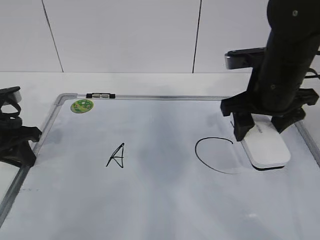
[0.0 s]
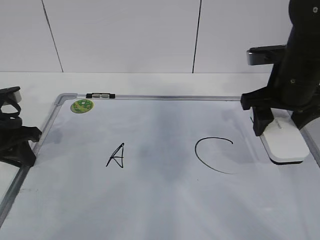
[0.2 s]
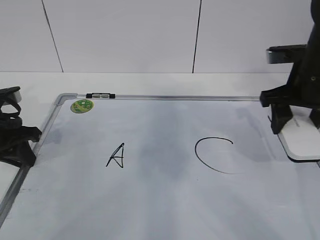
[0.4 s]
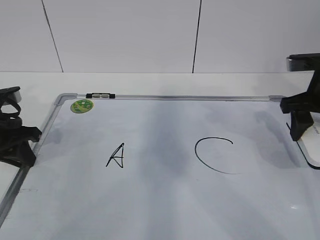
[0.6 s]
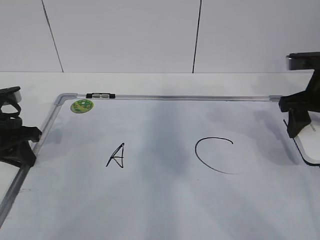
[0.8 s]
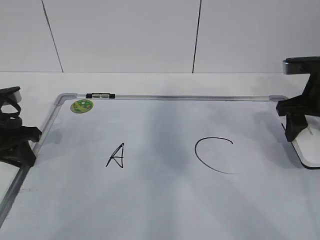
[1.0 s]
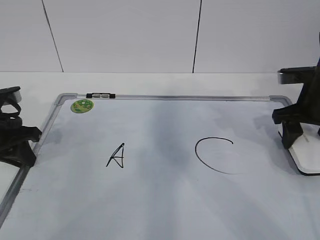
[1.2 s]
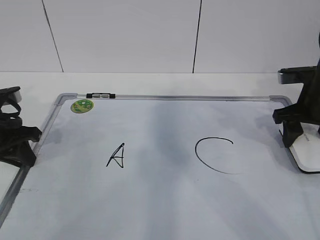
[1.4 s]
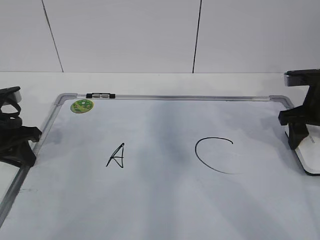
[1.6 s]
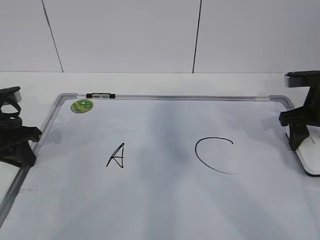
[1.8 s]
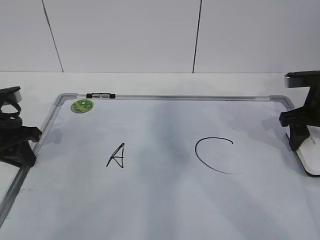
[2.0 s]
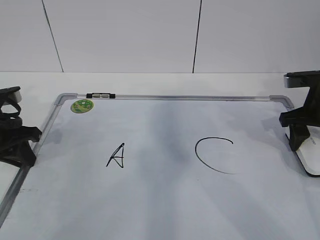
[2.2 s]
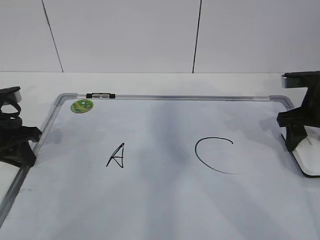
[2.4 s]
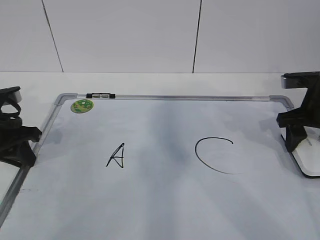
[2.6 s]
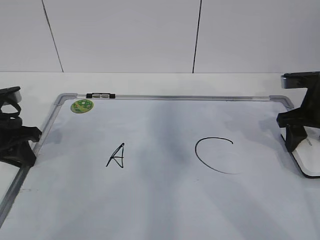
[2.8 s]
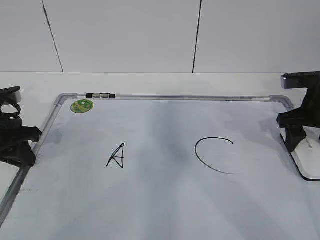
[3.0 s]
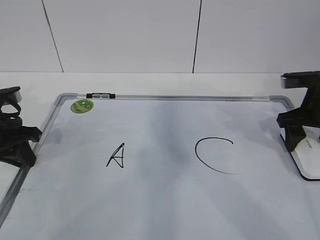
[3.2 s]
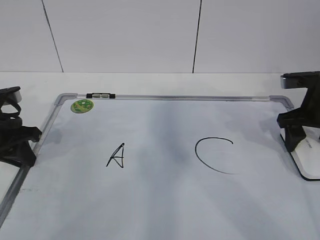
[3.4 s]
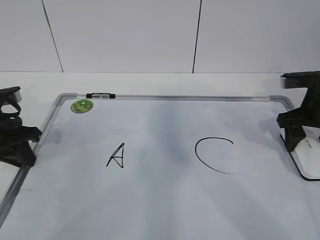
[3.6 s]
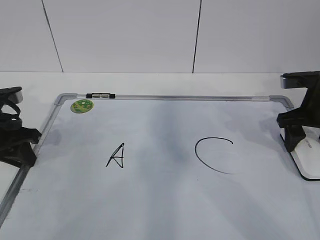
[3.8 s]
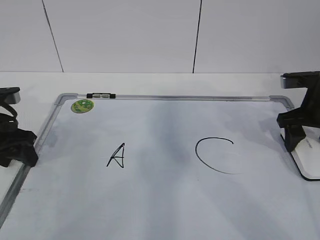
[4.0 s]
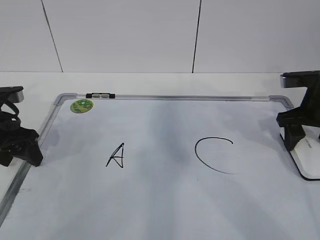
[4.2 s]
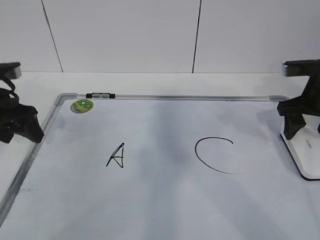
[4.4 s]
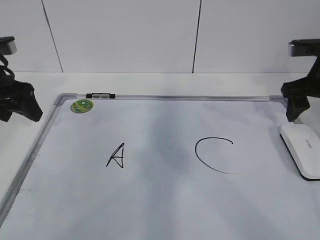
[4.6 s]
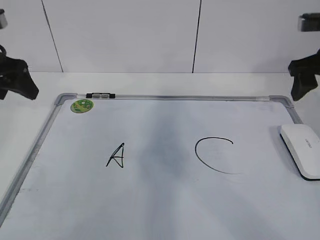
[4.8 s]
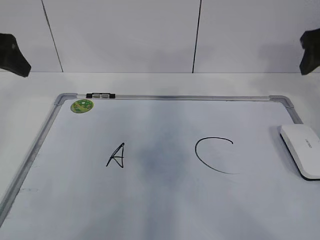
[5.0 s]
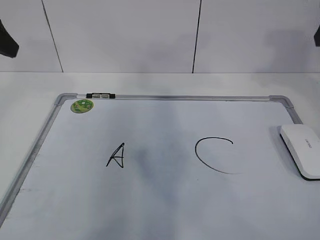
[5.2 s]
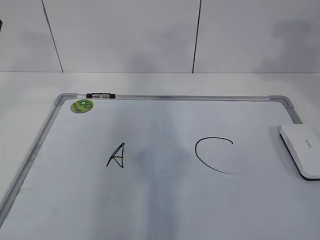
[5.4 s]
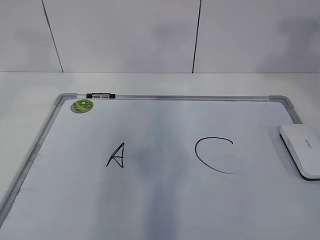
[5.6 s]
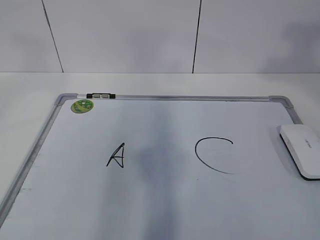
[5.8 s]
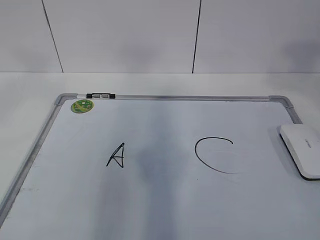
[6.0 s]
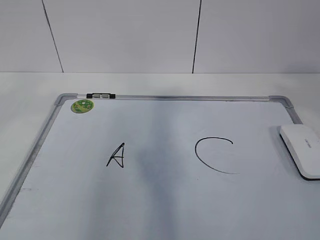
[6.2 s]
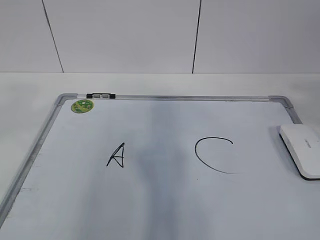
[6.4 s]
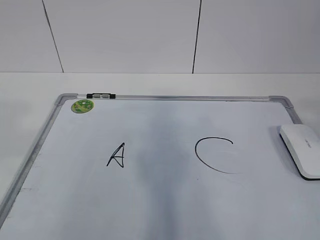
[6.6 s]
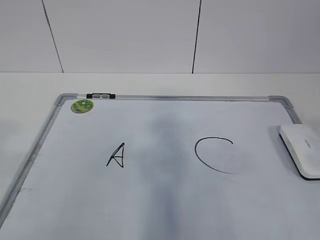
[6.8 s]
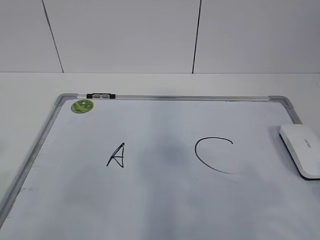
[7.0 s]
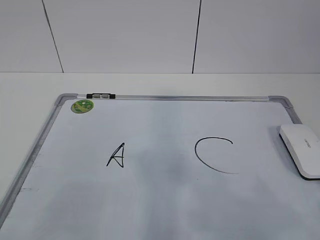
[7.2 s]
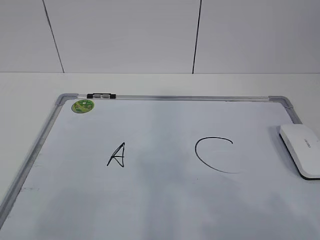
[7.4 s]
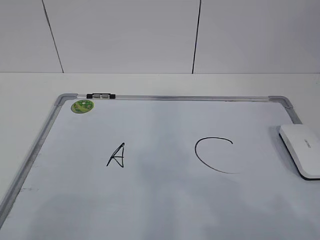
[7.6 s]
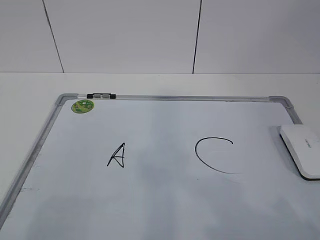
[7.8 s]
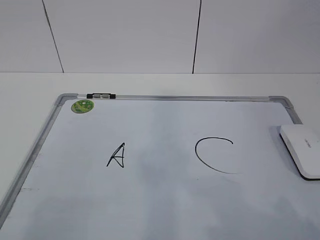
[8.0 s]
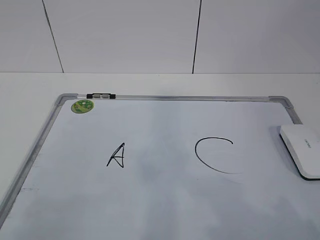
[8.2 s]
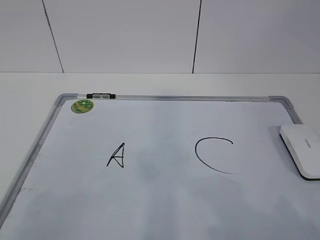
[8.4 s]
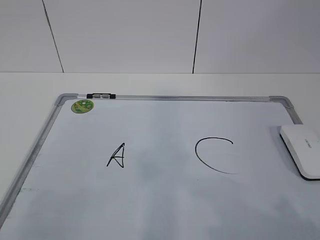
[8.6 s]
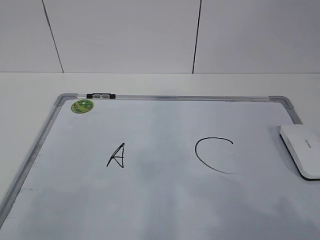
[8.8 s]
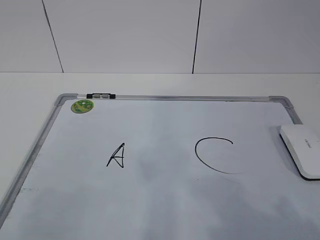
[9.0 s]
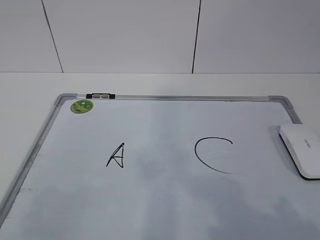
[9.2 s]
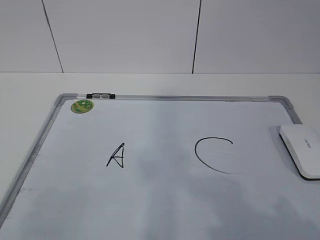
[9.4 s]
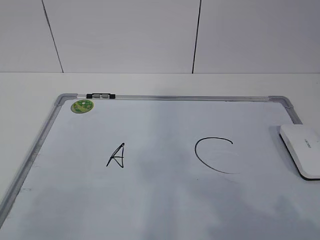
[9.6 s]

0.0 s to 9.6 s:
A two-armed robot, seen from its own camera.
Task of the whole recording: pick up the eraser on the blackboard and erase the letter "B".
0.0 to 1.6 s: The right gripper goes approximately 15 cm to the right and downward.
1.6 to 3.2 s: The right gripper opens up.
3.2 to 4.8 s: Both grippers travel together upward, about 10 cm. The left gripper opens.
4.8 to 6.4 s: Both grippers move backward and upward, some 30 cm.
6.4 to 8.0 s: The grippers both shift downward and backward by about 20 cm.

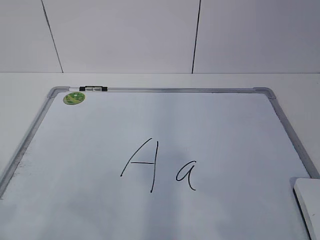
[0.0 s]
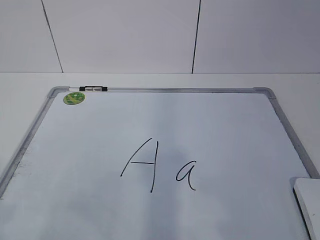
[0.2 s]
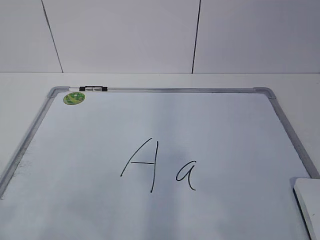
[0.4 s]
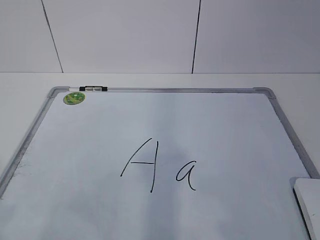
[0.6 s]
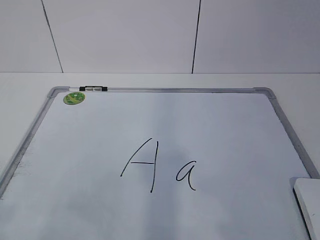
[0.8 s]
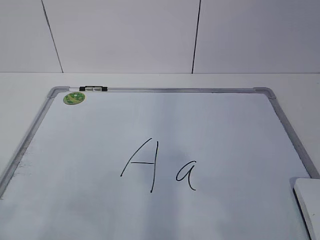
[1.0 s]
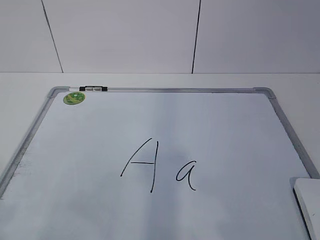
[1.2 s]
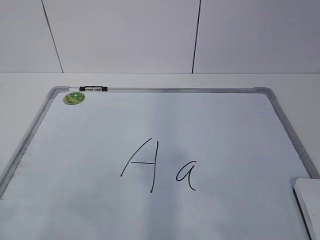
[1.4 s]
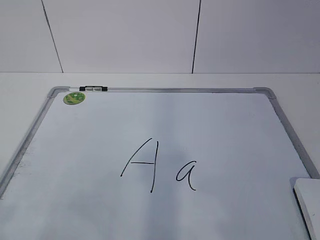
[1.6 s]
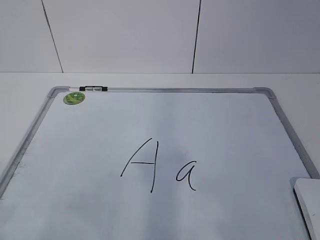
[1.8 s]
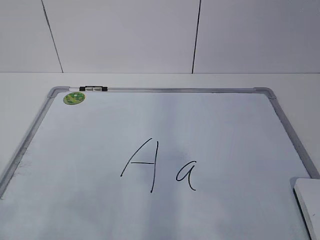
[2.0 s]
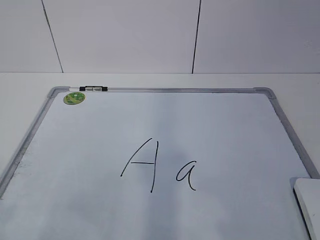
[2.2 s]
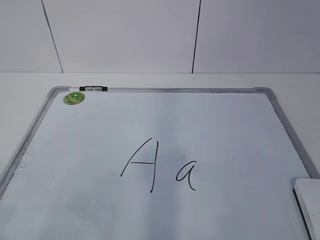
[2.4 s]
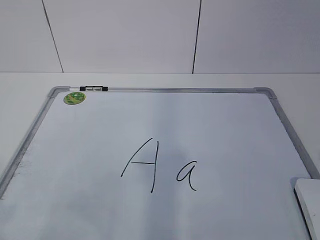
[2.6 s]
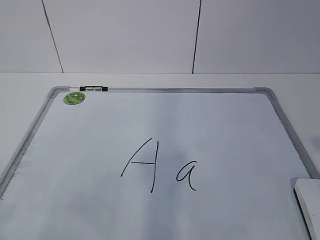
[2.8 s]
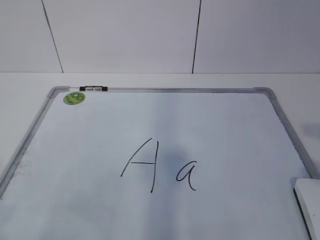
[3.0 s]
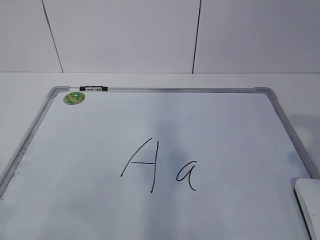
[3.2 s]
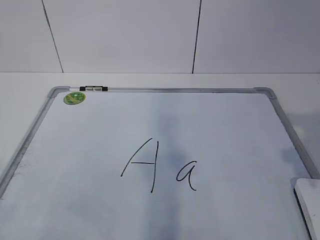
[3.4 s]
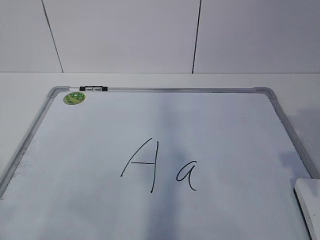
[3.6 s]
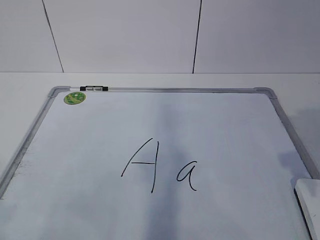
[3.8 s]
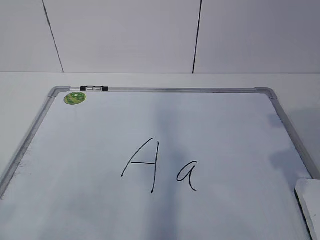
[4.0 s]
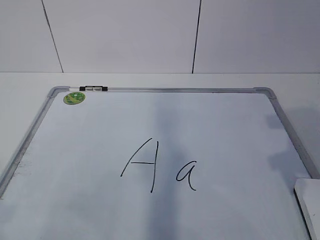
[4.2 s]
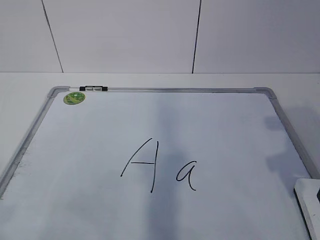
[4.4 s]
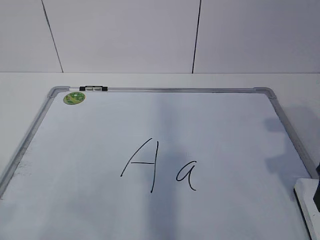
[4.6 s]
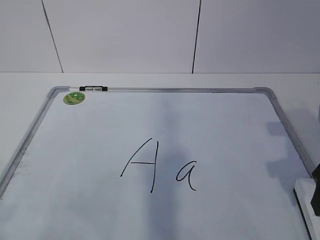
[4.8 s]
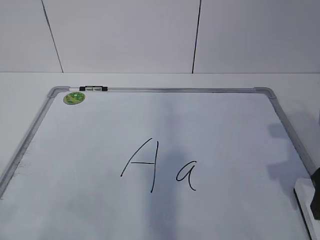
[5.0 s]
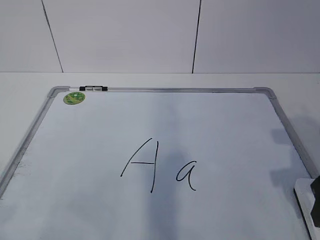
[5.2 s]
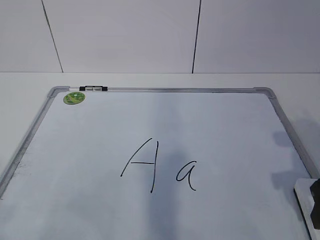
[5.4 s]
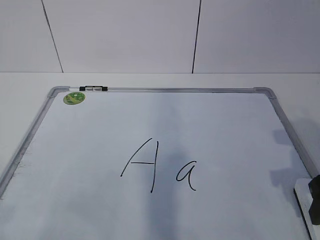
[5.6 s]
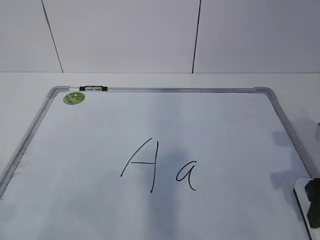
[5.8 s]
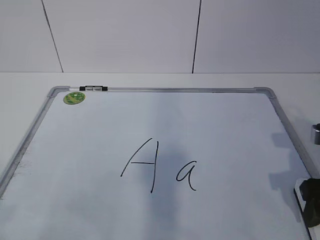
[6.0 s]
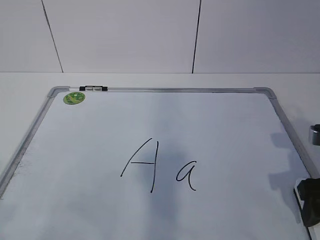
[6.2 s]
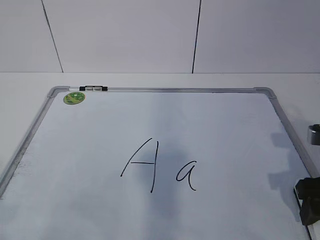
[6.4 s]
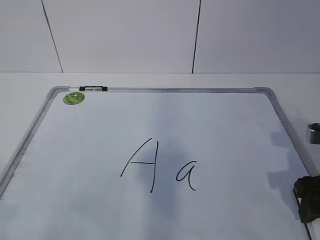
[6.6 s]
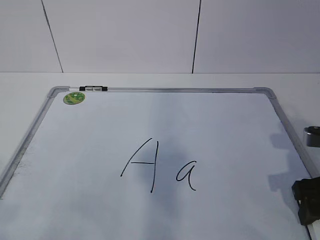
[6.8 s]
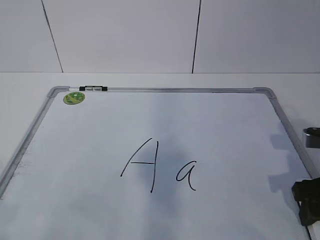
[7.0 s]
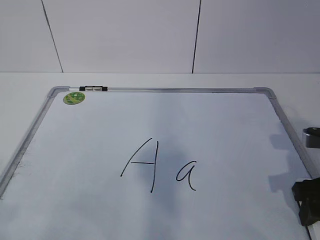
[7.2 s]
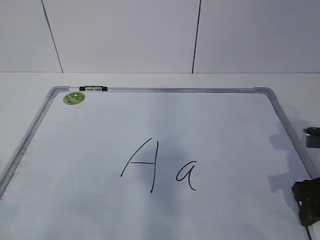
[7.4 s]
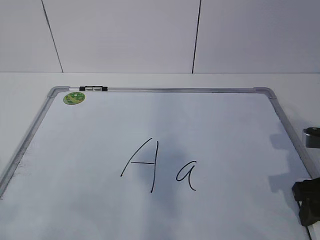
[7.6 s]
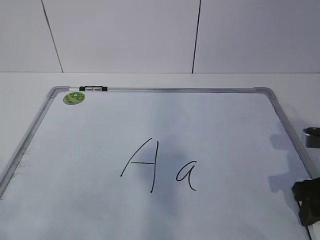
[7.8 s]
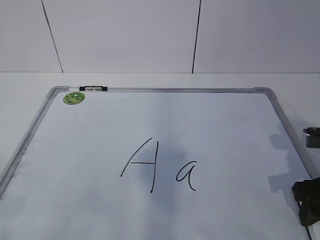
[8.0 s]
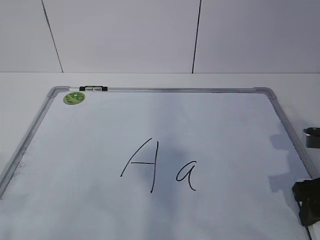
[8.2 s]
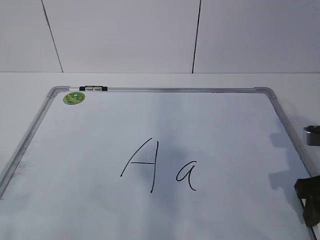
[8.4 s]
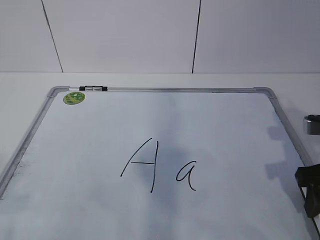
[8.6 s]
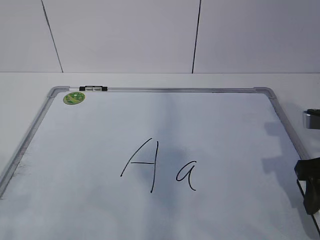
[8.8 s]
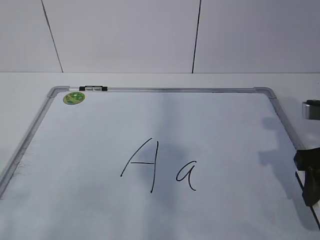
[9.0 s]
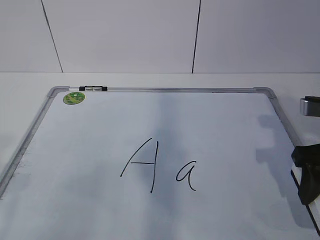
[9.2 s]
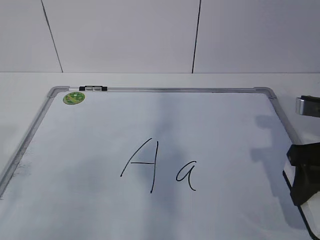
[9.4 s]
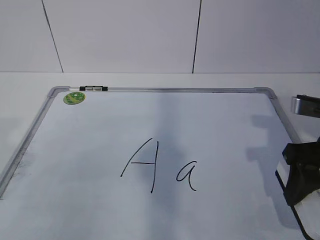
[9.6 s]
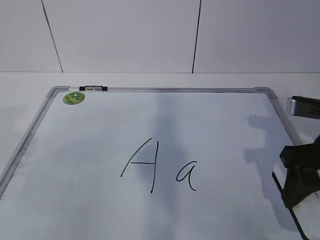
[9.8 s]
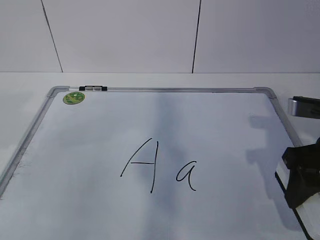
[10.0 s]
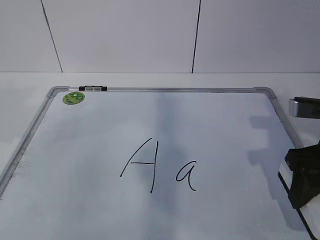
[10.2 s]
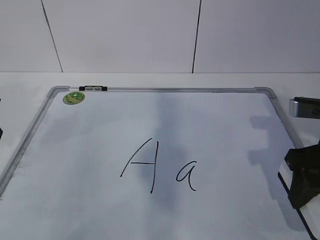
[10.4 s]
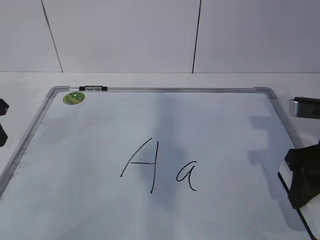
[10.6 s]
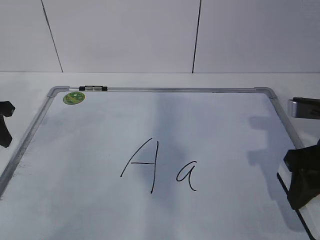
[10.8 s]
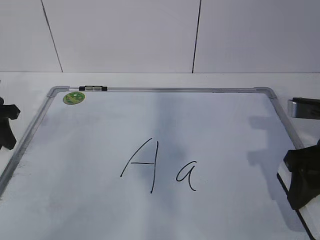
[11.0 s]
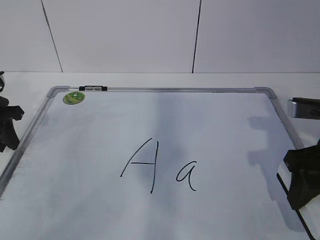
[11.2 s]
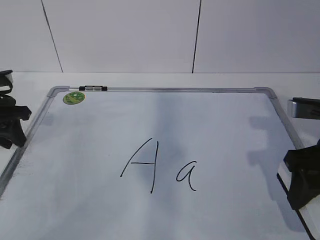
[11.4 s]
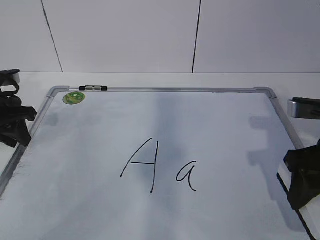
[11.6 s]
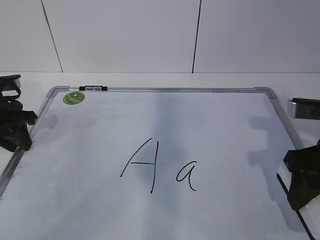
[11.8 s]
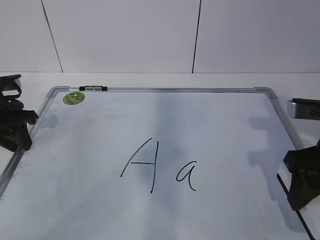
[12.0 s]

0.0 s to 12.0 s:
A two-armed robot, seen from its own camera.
Task of the whole recording: pick up the eraser on the blackboard and erase the letter "a".
Step, 6.0 to 11.8 s: Hold the drawing board steady with your left hand.
3.0 to 4.4 s: The right gripper travels forward by roughly 10 cm.
4.4 to 6.0 s: The right gripper heads downward, covering roughly 5 cm.
6.0 to 7.6 s: The right gripper closes.
7.6 to 9.0 s: The right gripper ends up roughly 5 cm from where it was.
9.0 to 10.4 s: The left gripper goes some 30 cm forward.
10.4 to 12.0 s: The left gripper is displaced downward and forward by some 10 cm.

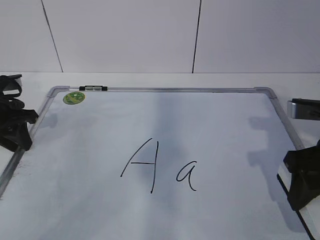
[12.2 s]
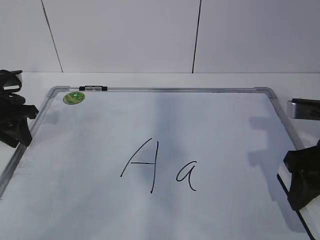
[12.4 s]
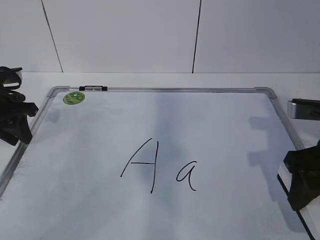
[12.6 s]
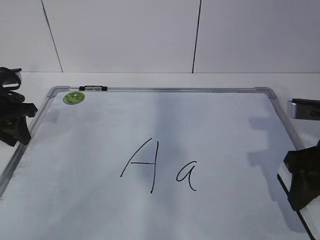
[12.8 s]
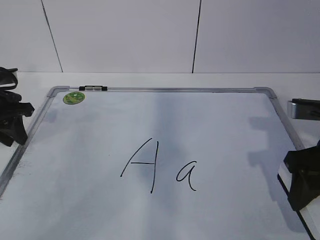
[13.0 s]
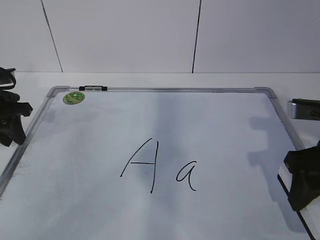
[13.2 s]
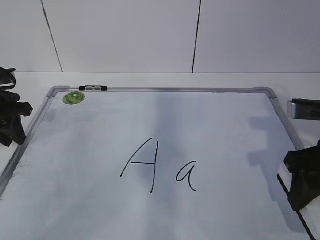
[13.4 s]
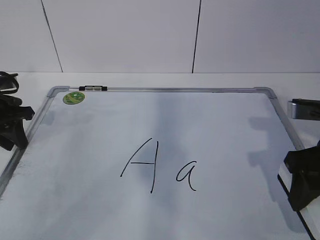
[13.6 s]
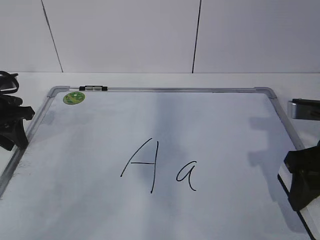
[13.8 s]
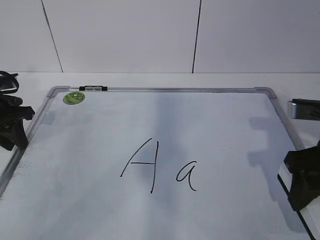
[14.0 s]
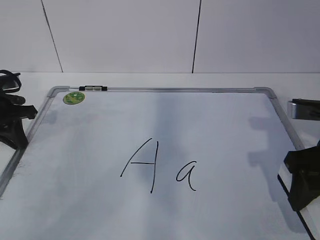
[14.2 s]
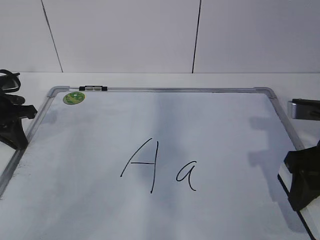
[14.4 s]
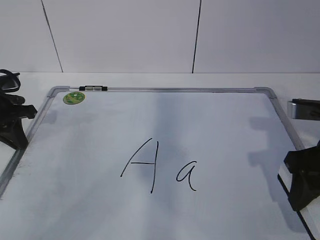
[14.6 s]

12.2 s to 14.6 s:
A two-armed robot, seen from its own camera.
Task of the whole recording: pick up the eraser on the blackboard and erase the letter "a".
12.2 to 13.4 s: The grippers stay close to where they were, moving slightly.
13.4 to 14.6 s: The left gripper closes.
